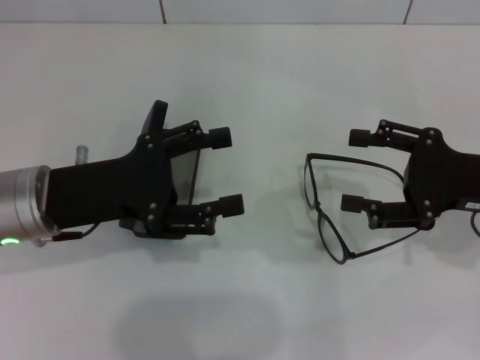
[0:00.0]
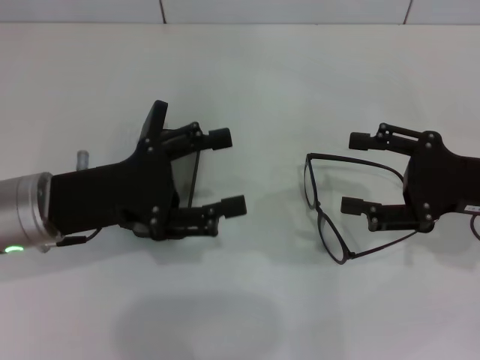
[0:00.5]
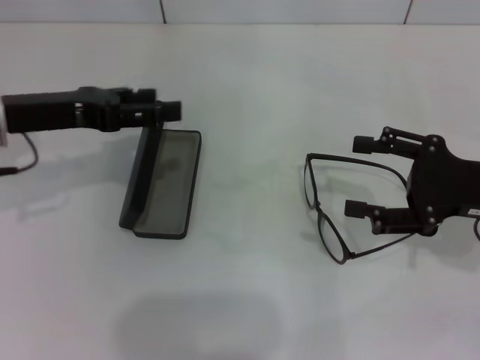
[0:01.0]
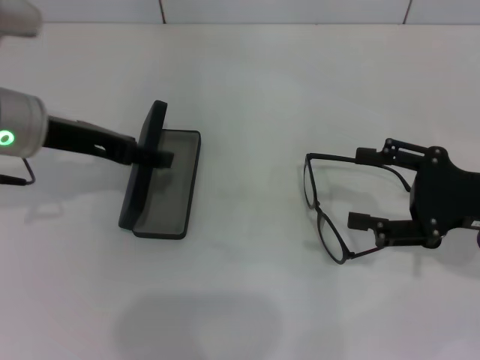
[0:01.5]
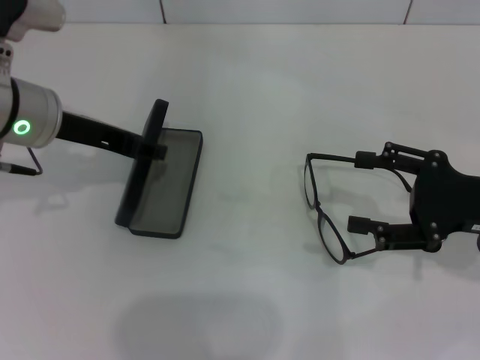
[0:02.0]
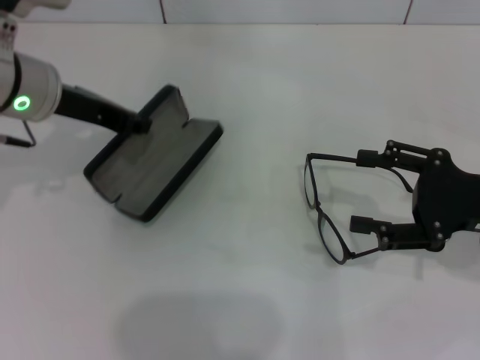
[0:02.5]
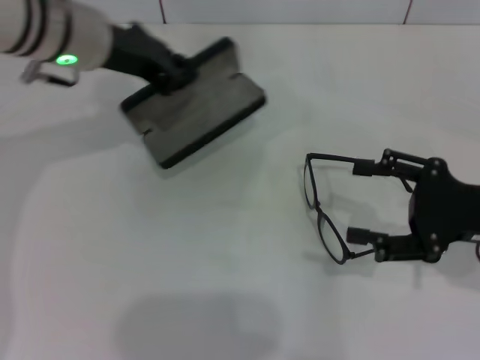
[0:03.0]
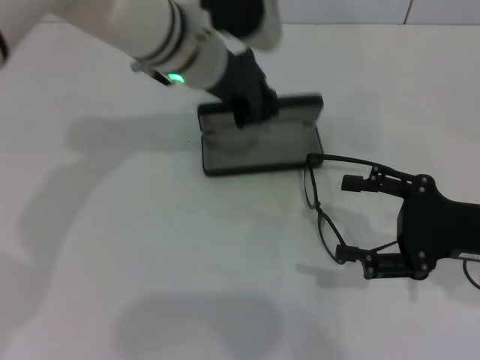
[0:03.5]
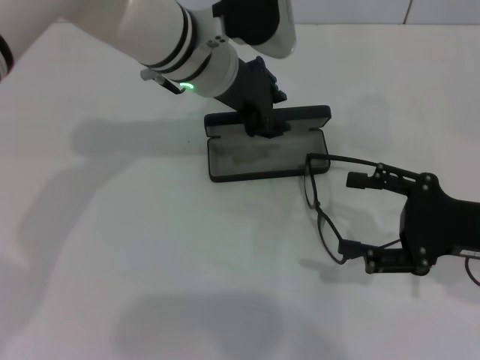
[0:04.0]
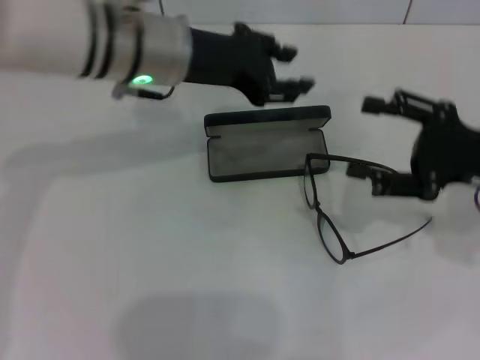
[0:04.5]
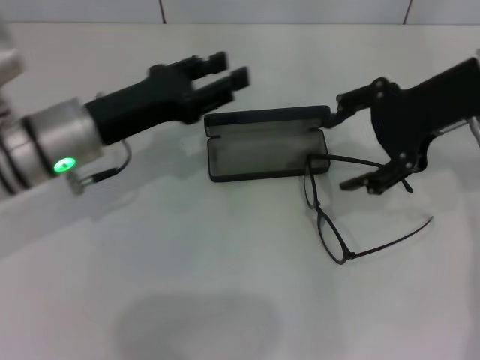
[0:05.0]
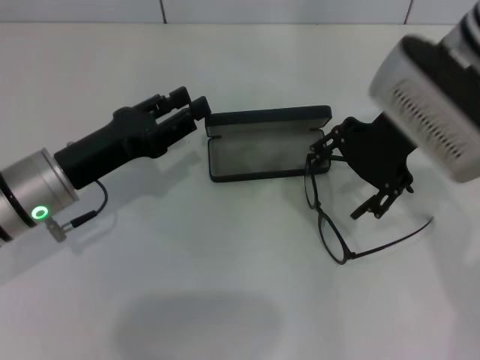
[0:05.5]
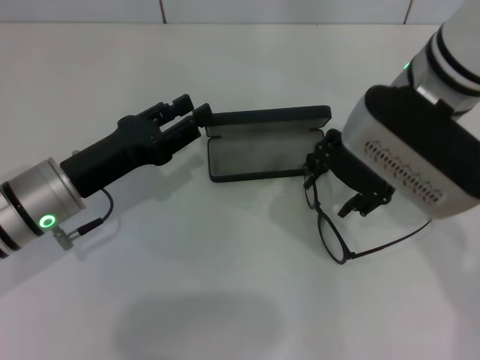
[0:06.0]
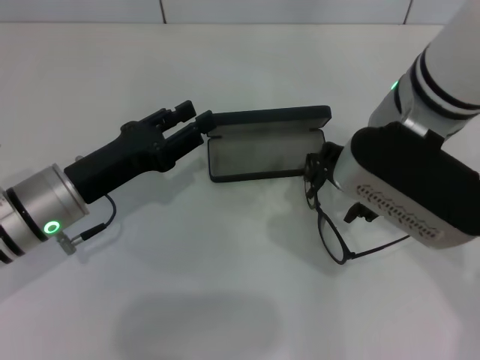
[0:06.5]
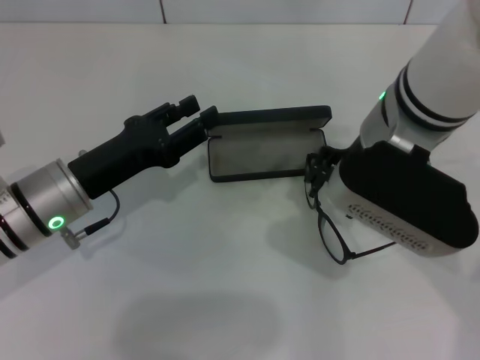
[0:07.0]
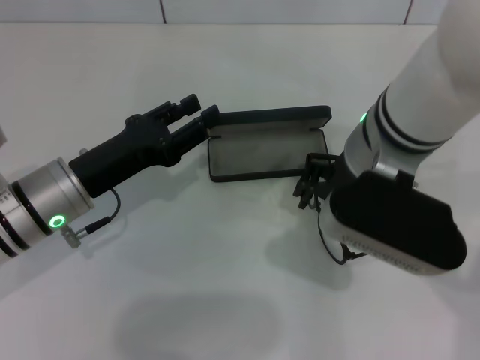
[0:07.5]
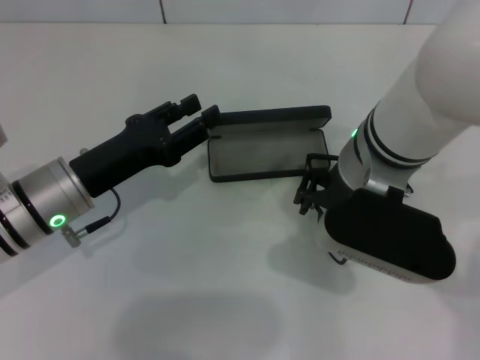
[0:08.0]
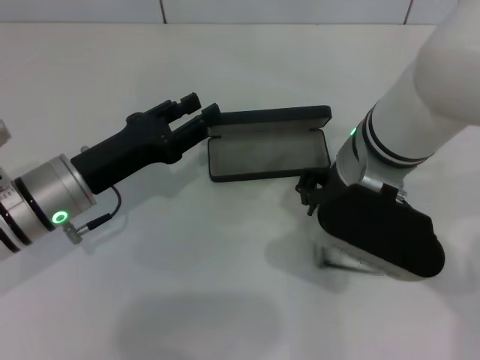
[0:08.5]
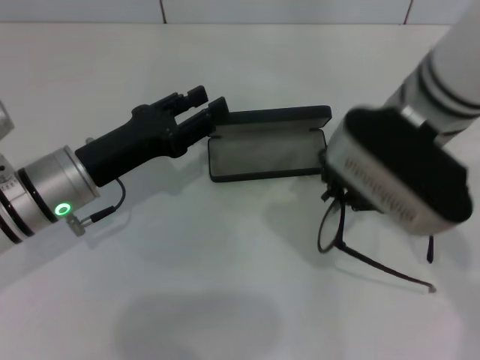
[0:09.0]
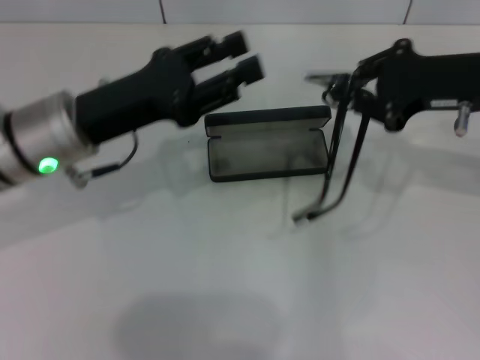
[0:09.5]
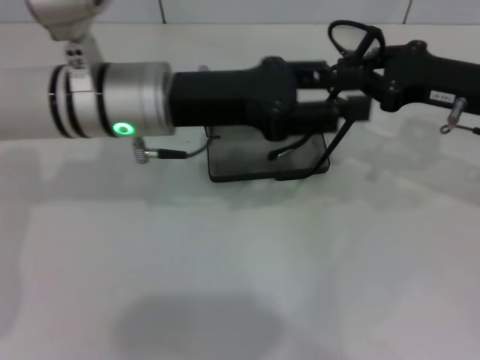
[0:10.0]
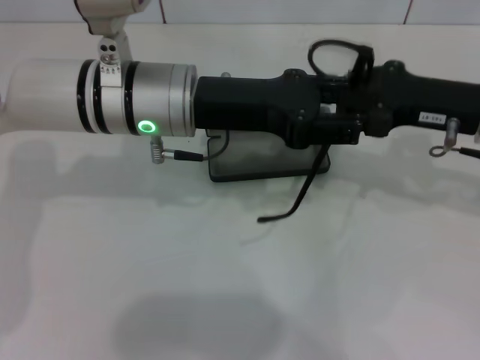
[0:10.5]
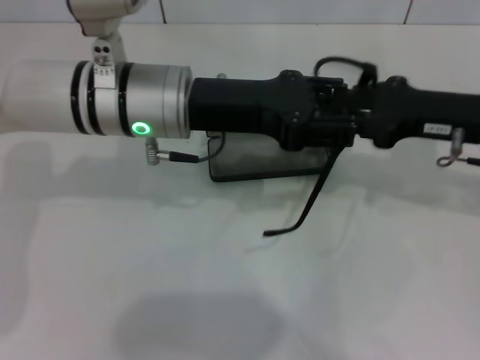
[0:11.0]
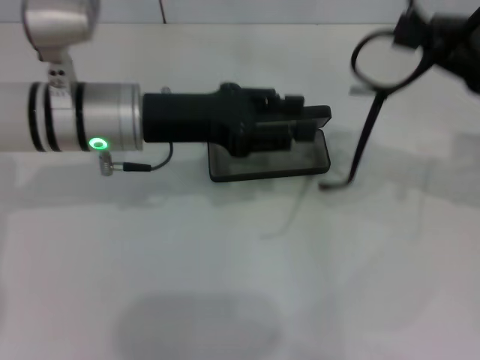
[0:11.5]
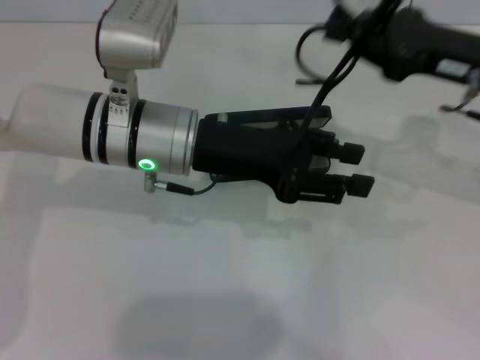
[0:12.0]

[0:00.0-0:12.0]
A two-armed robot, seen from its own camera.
Step, 0:00.0 to 0:02.0: Grab the glasses case with your left hand.
Step, 0:02.5 to 0:03.5: Place the glasses case in the center of the table with your left hand.
Step, 0:04.0 to 0:08.0: Grab the eyeglass frame with your right hand.
0:00.0 to 0:02.0: The left gripper moves forward and upward, some 10 cm.
0:02.0 to 0:04.0: The left gripper heads to the right, covering roughly 15 cm, and closes.
0:04.0 to 0:06.0: The left gripper is displaced to the left, backward and downward by approximately 20 cm, and opens up, while the right gripper goes approximately 20 cm to the left, upward and forward.
0:06.0 to 0:08.0: The right gripper ends up approximately 5 cm from where it was.
0:08.0 to 0:10.0: The right gripper heads to the right, covering roughly 15 cm, and closes up. The left gripper goes roughly 15 cm upward, to the right and forward.

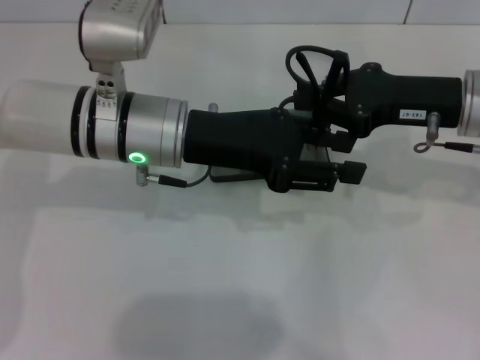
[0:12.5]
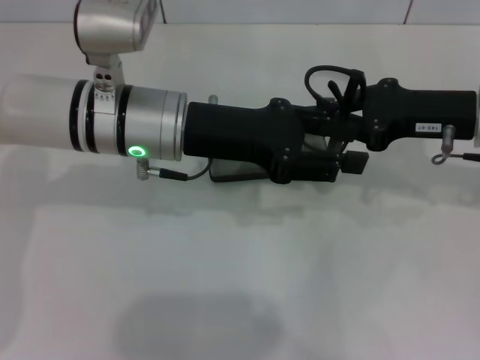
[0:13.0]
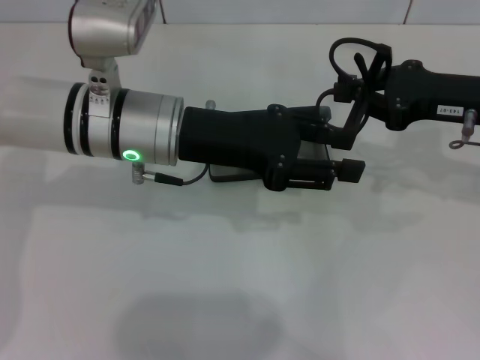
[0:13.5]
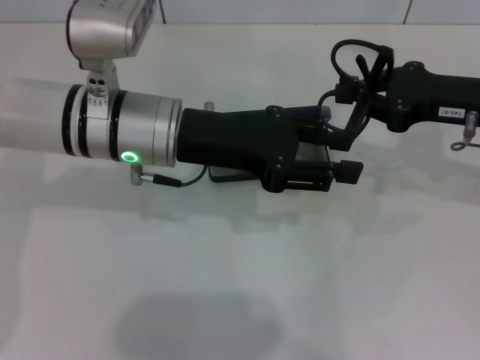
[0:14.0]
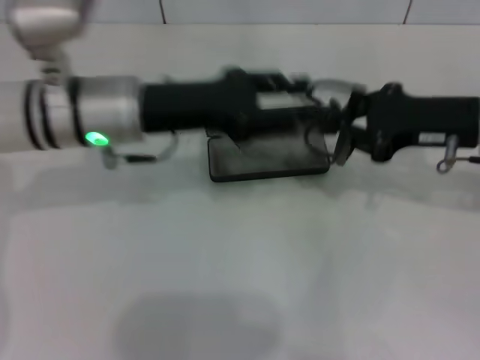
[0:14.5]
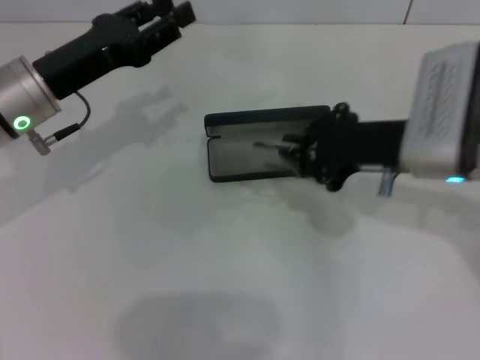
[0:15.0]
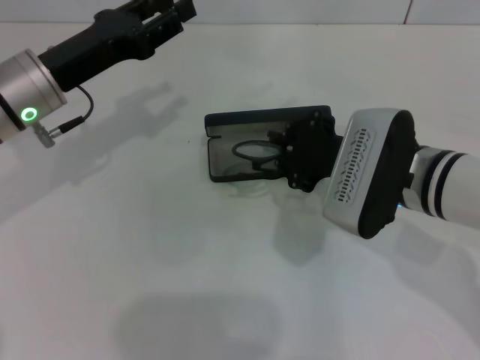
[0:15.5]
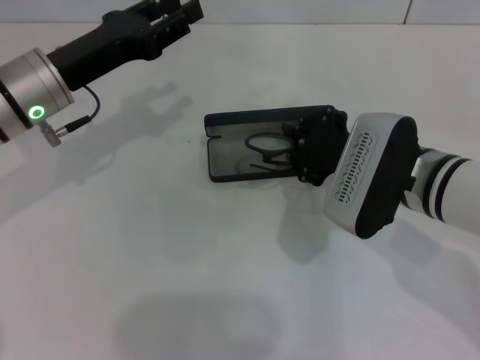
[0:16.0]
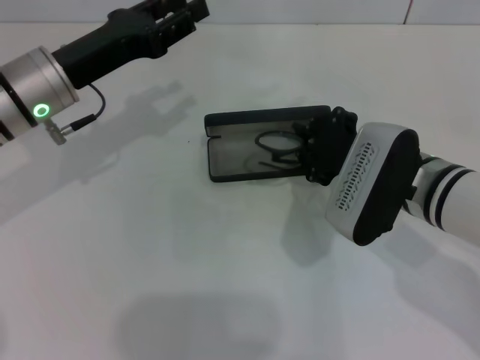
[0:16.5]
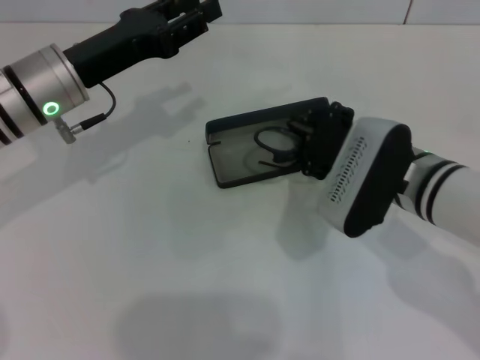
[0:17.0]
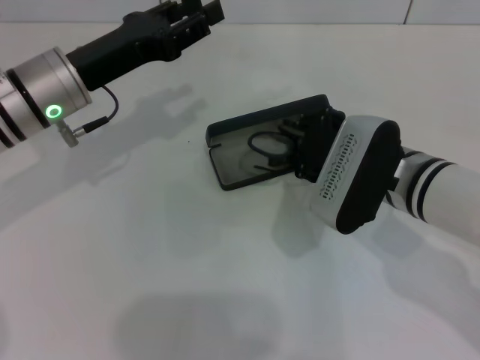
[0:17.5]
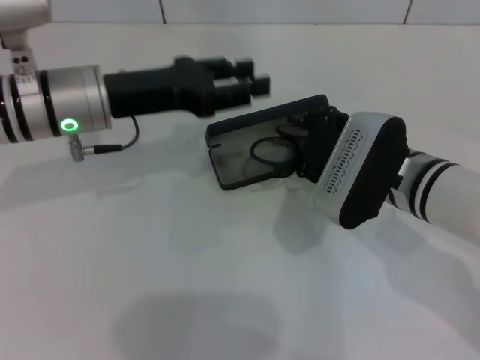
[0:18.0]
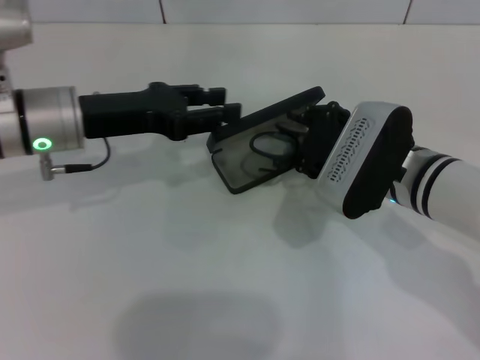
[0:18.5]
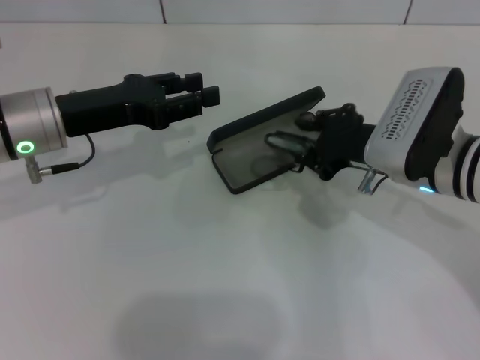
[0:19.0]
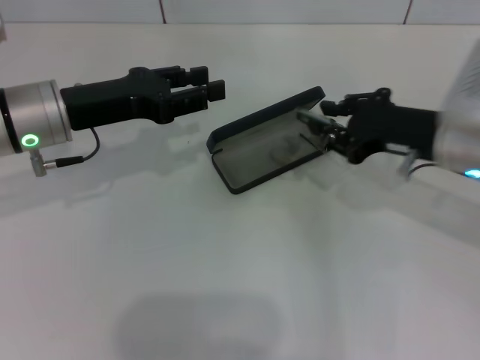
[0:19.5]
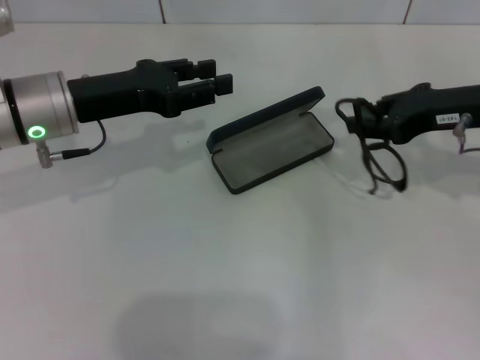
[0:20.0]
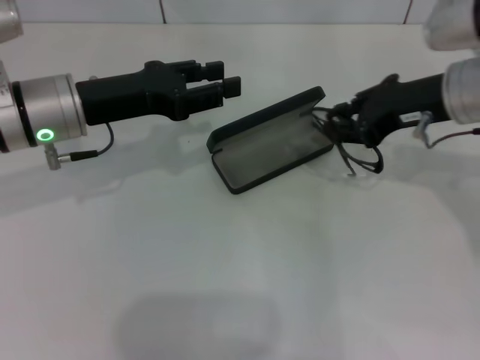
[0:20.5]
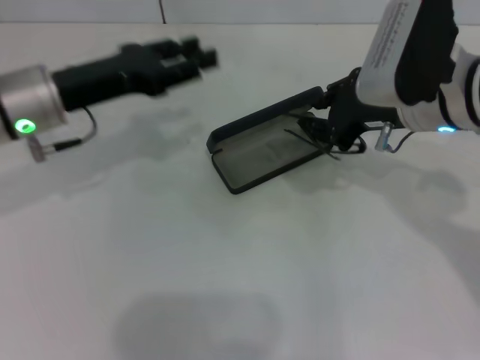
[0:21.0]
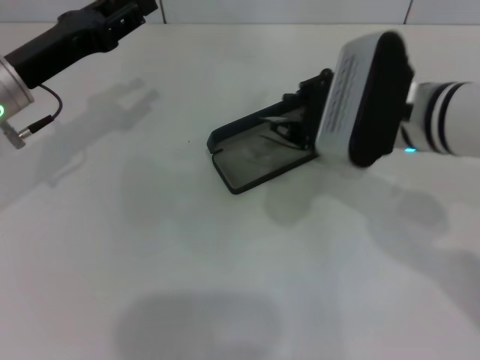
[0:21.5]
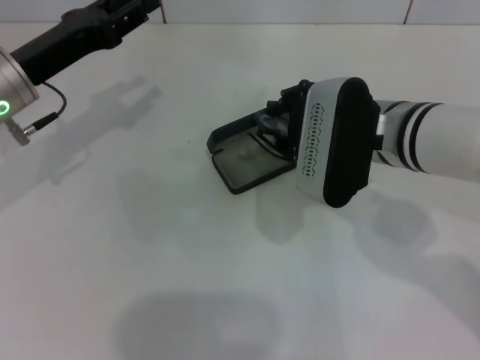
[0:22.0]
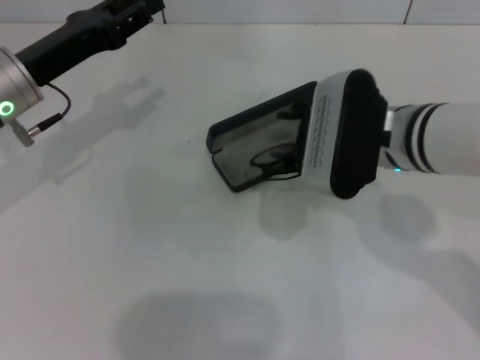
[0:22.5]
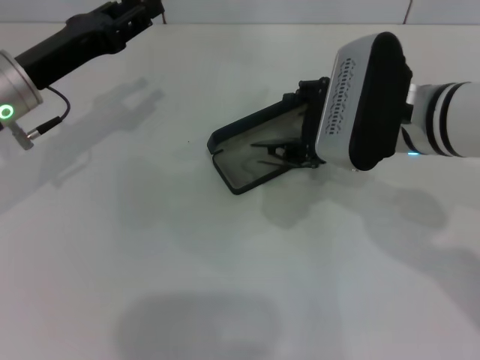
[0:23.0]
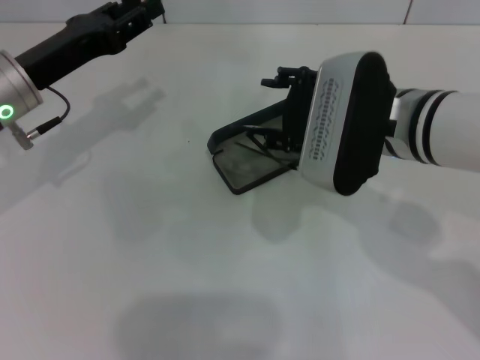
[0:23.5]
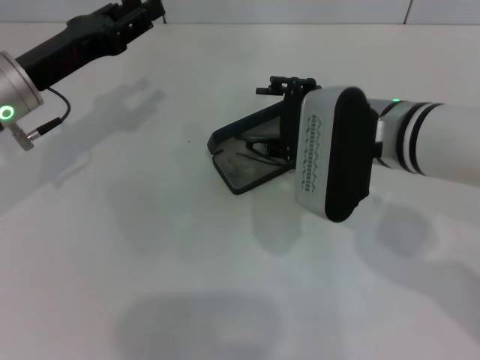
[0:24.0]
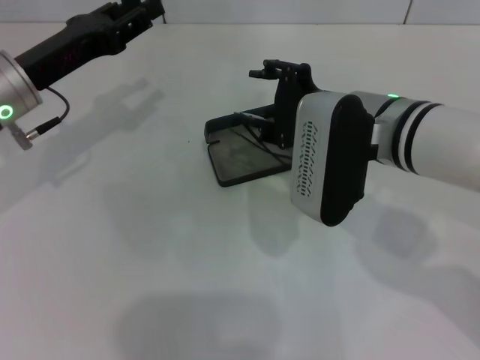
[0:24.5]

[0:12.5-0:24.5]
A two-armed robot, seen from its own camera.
0:14.5 to 0:16.5: The right gripper shifts roughly 10 cm to the left and downward, while the left gripper shifts approximately 5 cm to the left.
0:18.5 to 0:20.5: The right gripper travels upward and to the right by roughly 10 cm.
0:20.5 to 0:22.5: The right gripper travels to the left by approximately 10 cm.
0:22.5 to 0:24.5: The grippers make only small movements.

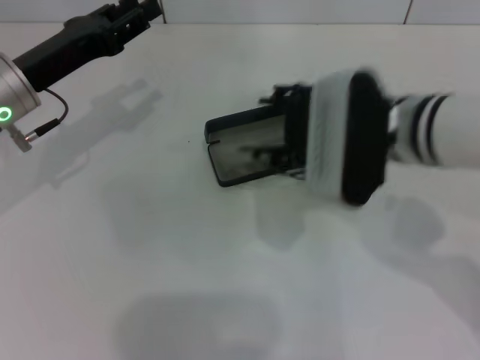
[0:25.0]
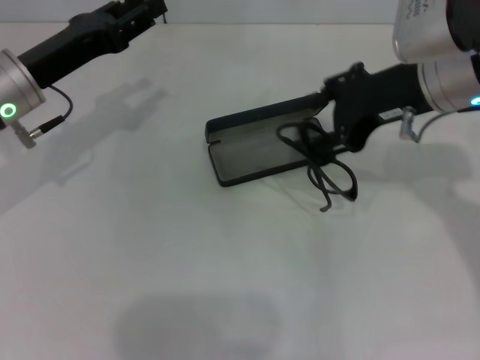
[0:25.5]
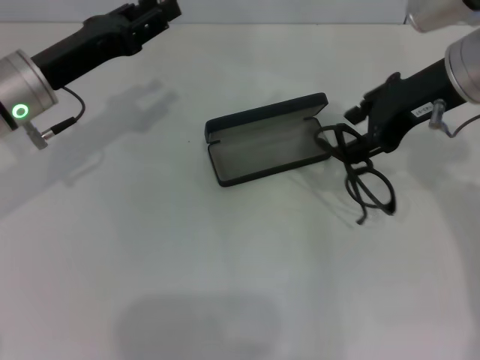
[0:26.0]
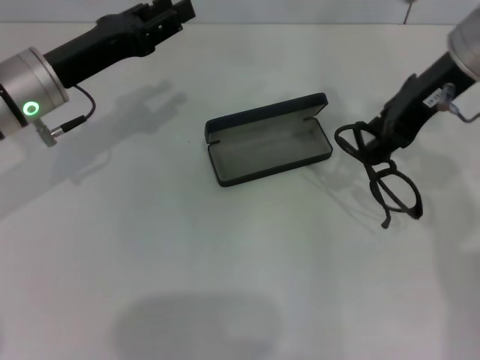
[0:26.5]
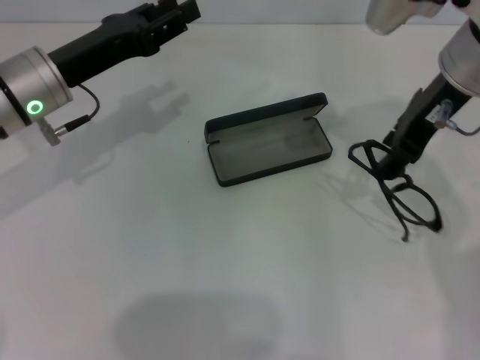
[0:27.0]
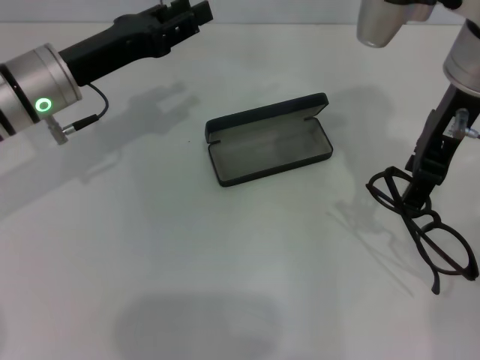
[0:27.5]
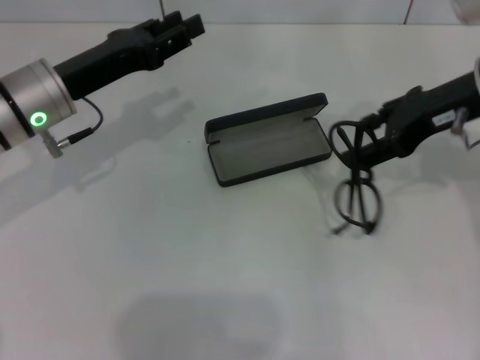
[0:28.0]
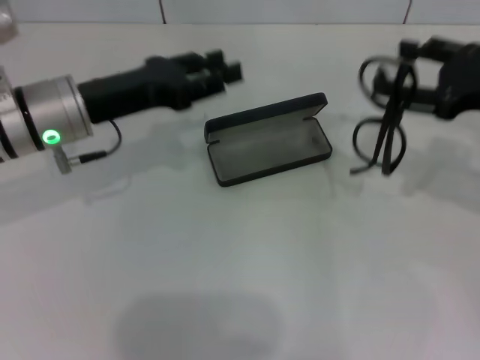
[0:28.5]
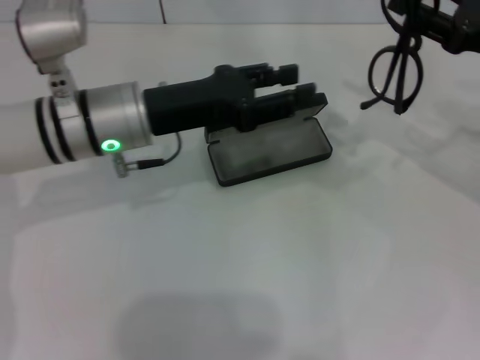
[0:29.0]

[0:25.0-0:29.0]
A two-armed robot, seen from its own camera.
0:25.0 to 0:27.0: The right gripper is displaced upward and forward by about 10 cm.
0:27.0 to 0:29.0: The left gripper heads to the right, covering approximately 5 cm, while the right gripper heads to the right and downward, covering roughly 15 cm, and opens up.
